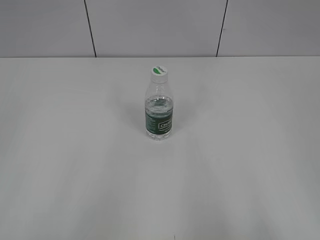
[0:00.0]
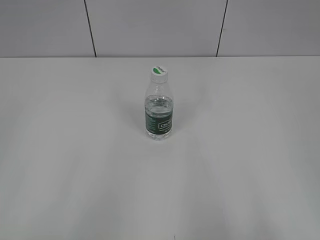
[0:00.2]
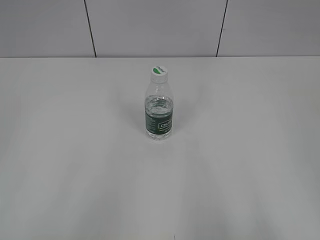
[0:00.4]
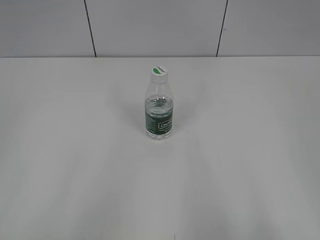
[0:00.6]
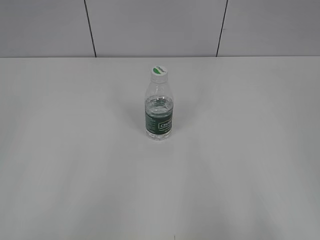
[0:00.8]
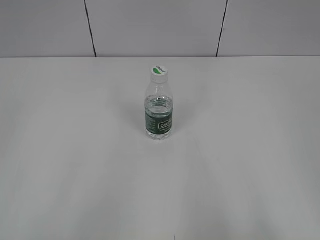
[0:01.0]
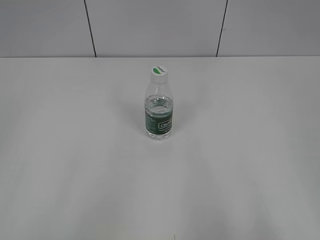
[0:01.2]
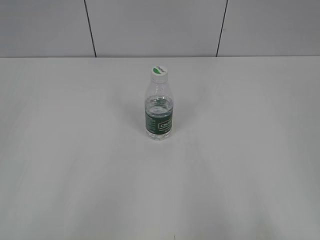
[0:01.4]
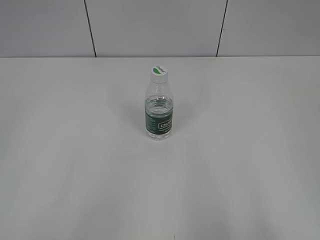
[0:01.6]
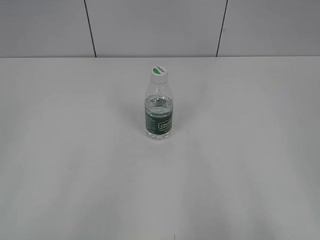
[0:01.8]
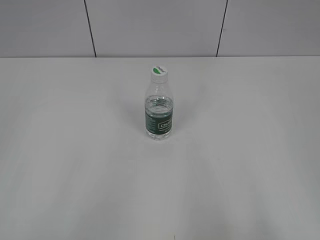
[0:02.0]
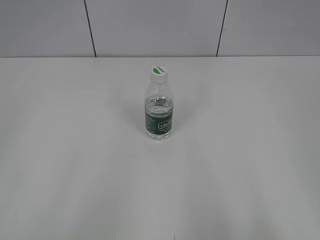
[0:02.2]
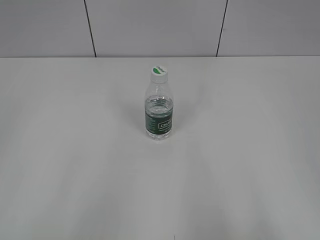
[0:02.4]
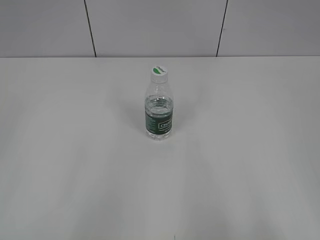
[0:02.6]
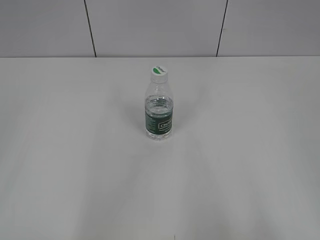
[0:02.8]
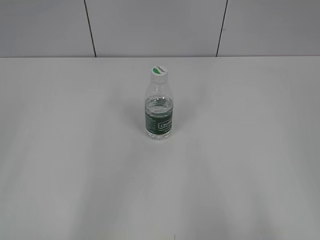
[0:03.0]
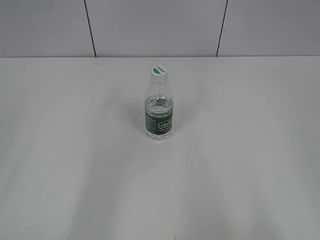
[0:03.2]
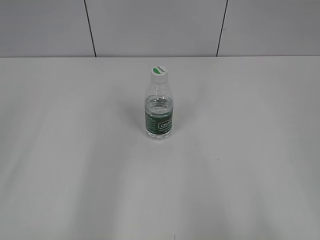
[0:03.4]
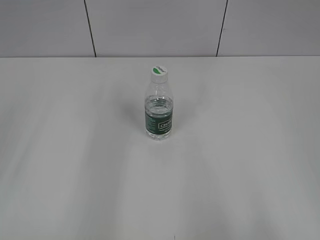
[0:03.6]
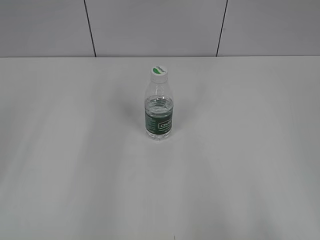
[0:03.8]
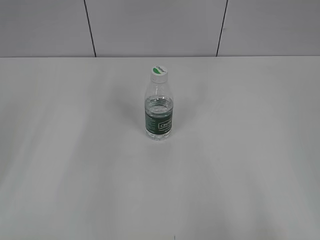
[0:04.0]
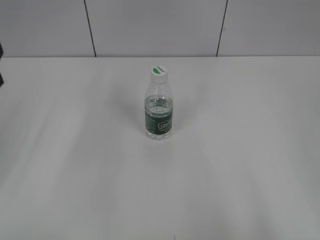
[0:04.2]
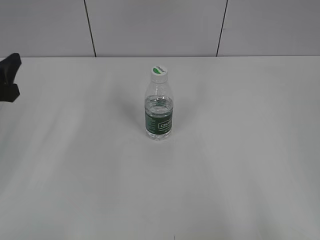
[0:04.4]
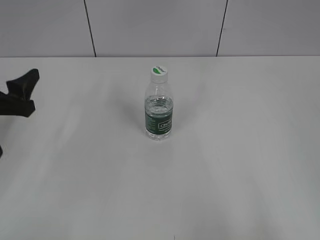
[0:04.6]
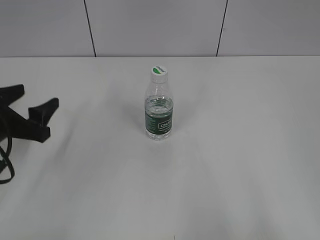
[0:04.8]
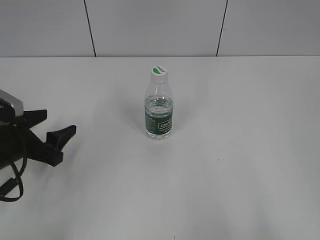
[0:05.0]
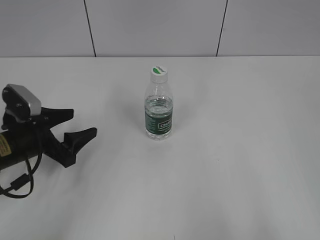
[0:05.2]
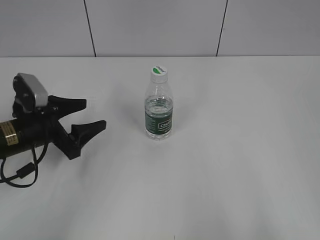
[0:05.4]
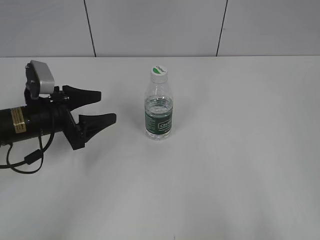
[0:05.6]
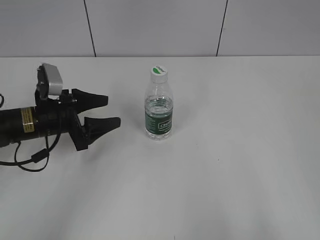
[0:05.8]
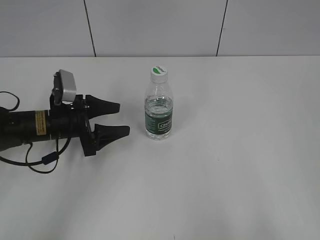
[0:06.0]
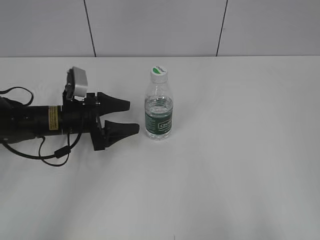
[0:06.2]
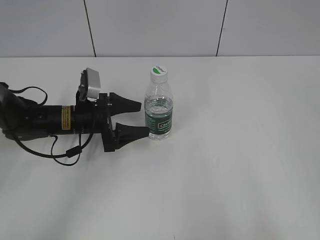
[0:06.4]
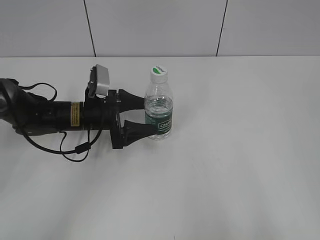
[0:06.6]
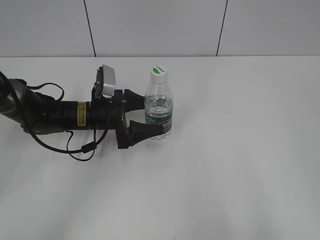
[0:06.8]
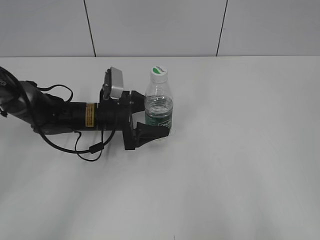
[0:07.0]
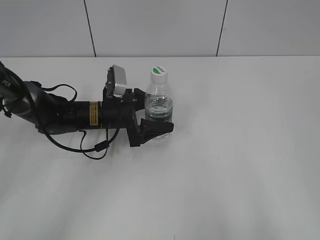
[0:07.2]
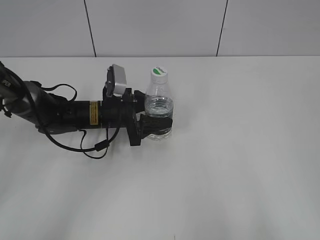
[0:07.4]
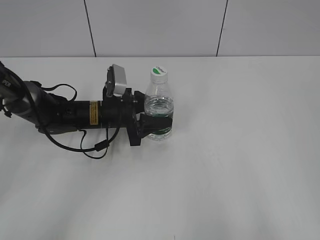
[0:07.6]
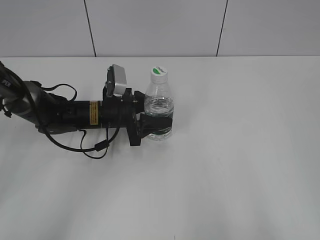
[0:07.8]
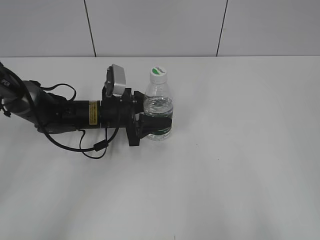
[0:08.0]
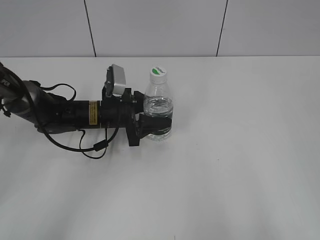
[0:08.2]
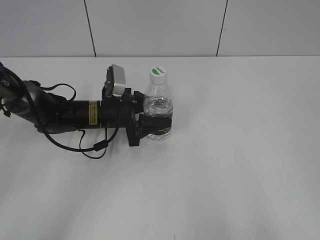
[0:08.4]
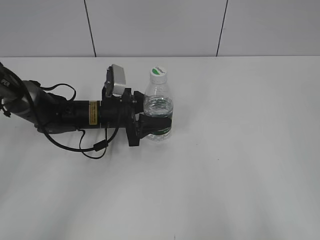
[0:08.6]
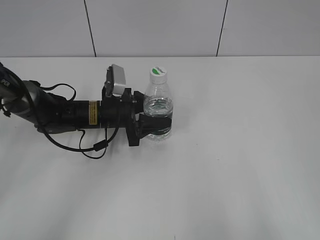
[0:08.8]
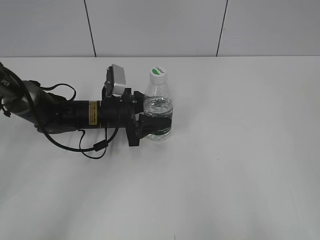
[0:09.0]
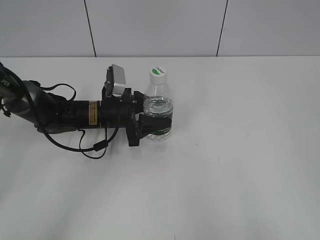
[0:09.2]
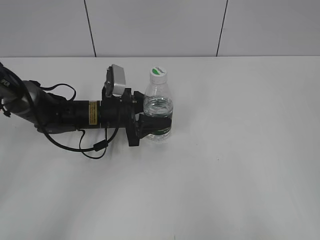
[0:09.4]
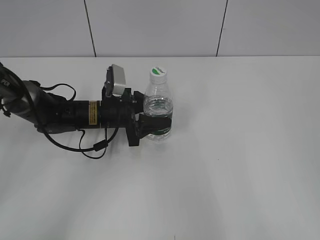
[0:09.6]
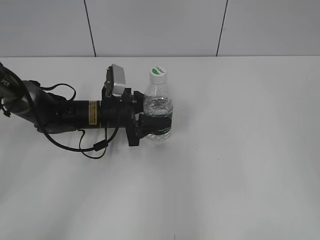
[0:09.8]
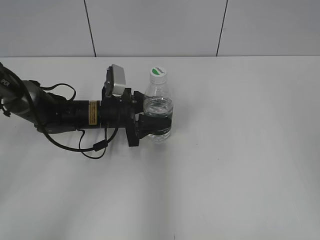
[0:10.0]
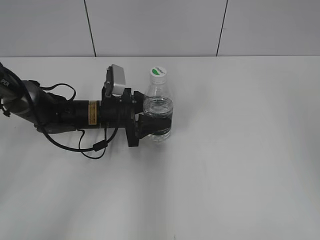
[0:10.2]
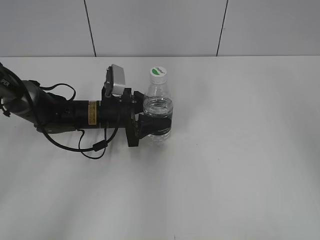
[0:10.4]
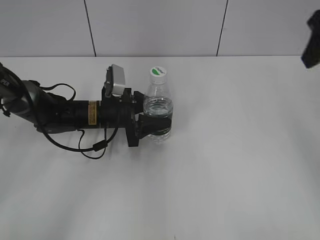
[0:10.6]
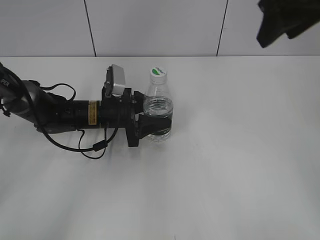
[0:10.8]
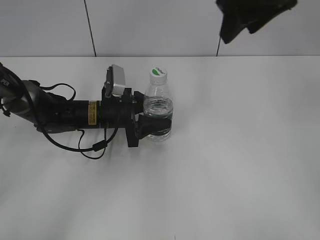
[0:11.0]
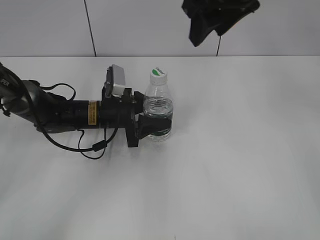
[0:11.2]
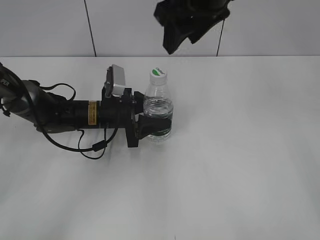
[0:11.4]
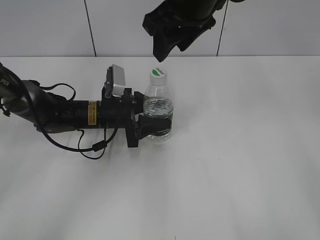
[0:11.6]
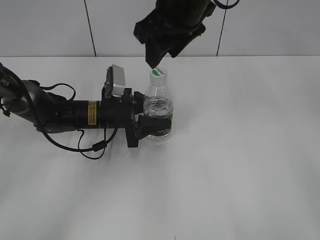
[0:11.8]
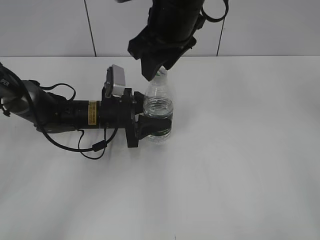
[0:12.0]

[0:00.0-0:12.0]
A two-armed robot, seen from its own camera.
Step, 0:00.0 to 0:08.6: Grasp the bottle and move it to the center of the table with the left gripper.
0:03.0 to 0:04.4: The left gripper heads forward and downward, covering about 25 cm.
0:04.4 to 0:06.0: The left gripper travels downward, forward and to the right by approximately 20 cm.
0:06.0 to 0:07.6: The left gripper travels to the right by some 10 cm, and closes.
0:07.6 to 0:09.0: The two grippers keep their place.
0:09.0 to 0:10.4: The right gripper moves forward, roughly 25 cm, and closes up.
0:10.4 to 0:12.0: The right gripper heads to the left, covering some 25 cm.

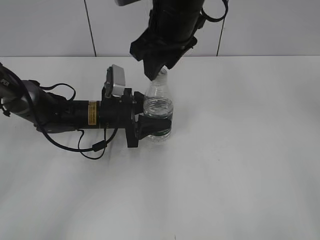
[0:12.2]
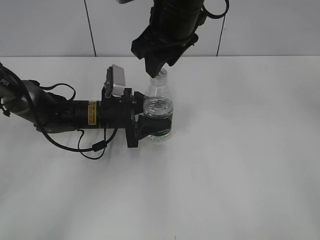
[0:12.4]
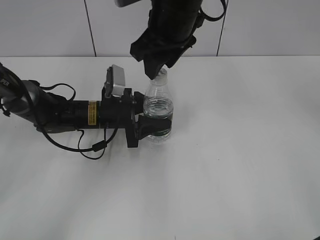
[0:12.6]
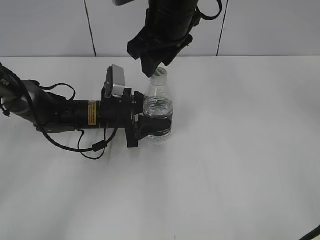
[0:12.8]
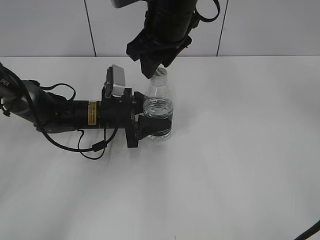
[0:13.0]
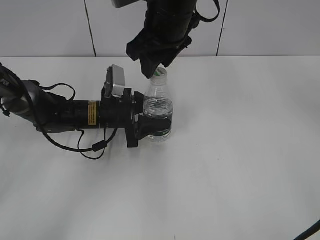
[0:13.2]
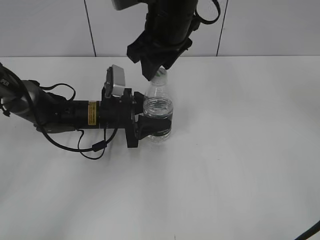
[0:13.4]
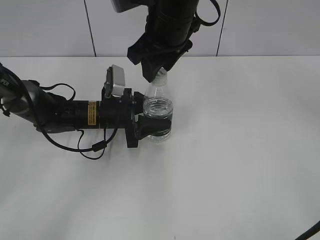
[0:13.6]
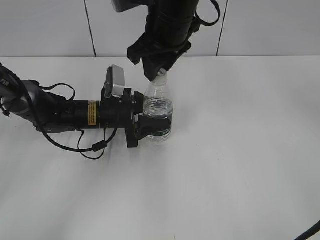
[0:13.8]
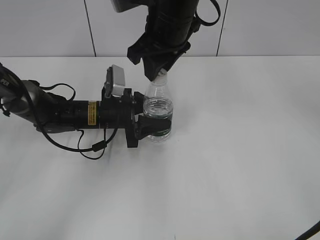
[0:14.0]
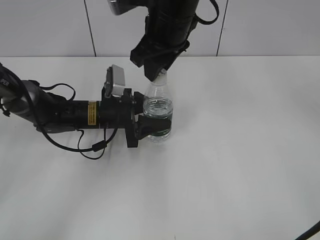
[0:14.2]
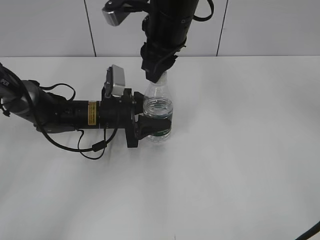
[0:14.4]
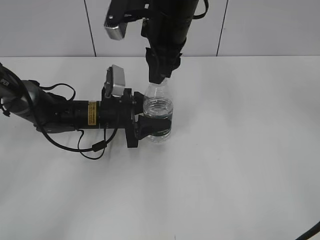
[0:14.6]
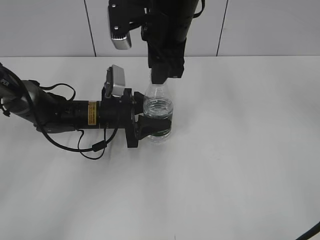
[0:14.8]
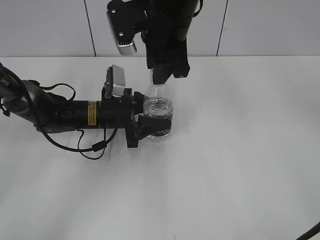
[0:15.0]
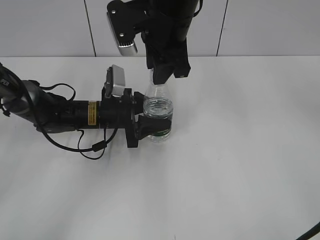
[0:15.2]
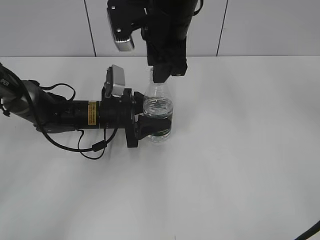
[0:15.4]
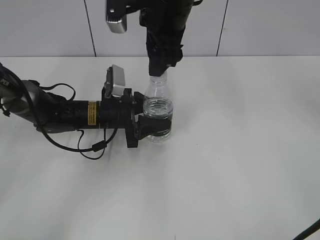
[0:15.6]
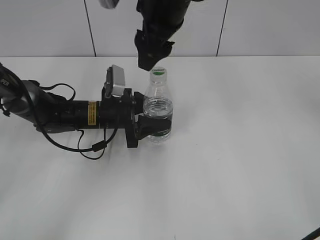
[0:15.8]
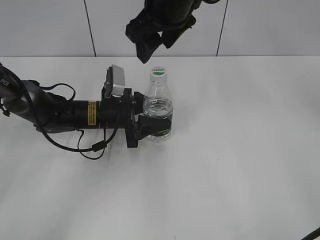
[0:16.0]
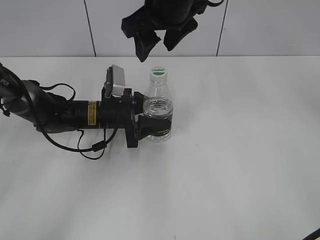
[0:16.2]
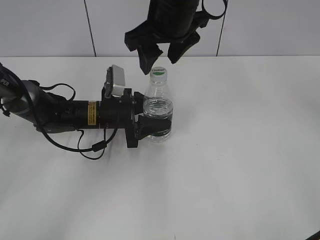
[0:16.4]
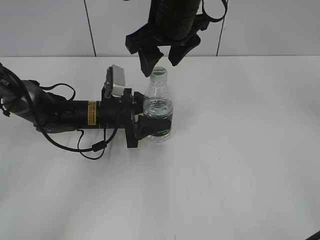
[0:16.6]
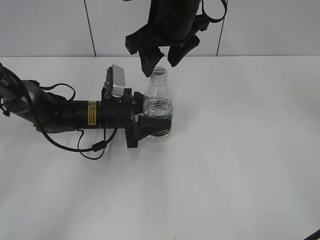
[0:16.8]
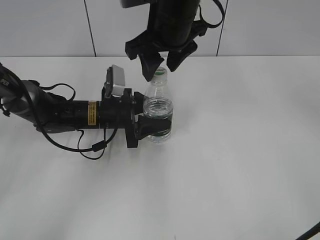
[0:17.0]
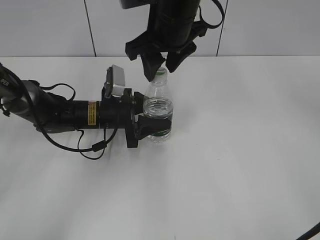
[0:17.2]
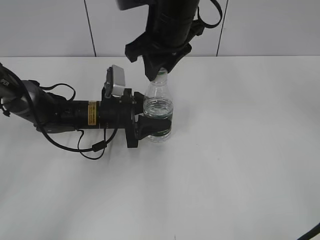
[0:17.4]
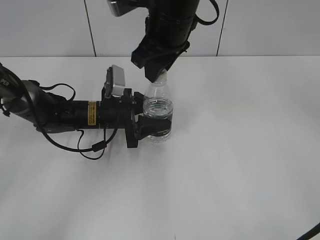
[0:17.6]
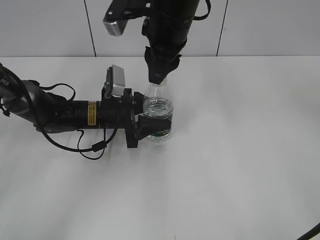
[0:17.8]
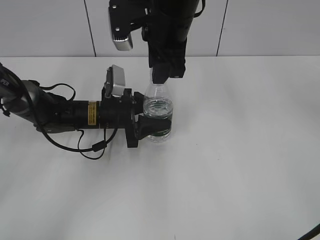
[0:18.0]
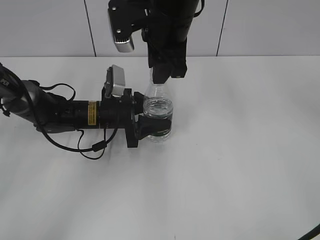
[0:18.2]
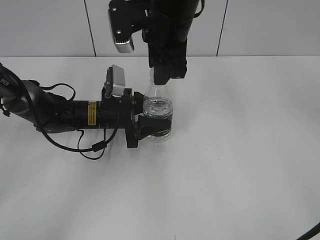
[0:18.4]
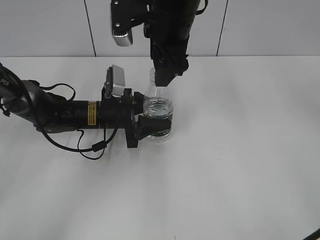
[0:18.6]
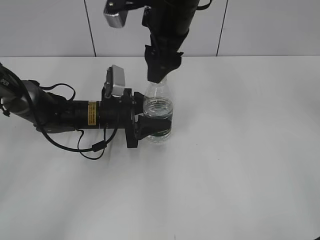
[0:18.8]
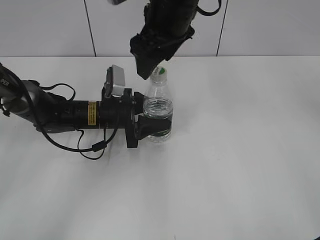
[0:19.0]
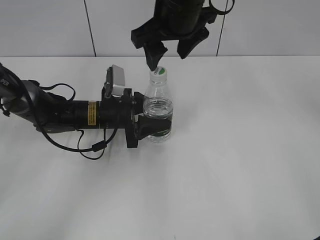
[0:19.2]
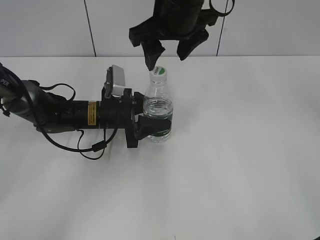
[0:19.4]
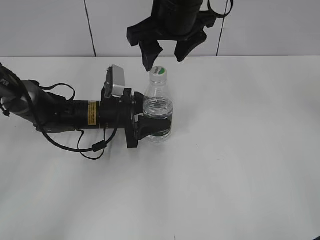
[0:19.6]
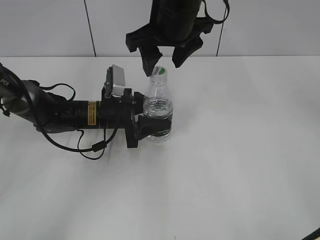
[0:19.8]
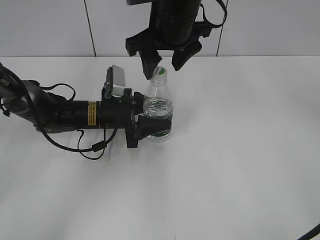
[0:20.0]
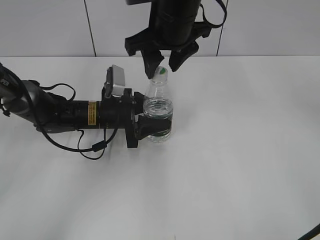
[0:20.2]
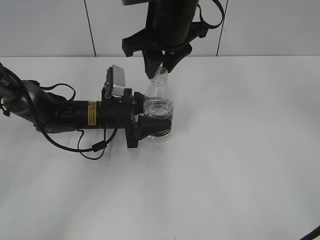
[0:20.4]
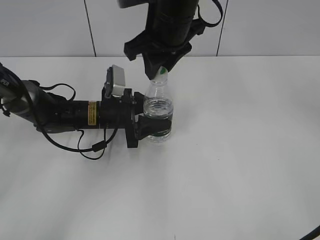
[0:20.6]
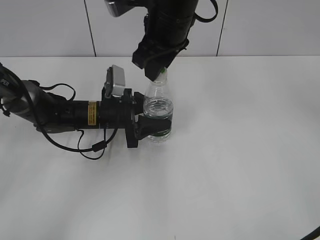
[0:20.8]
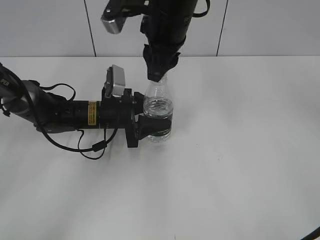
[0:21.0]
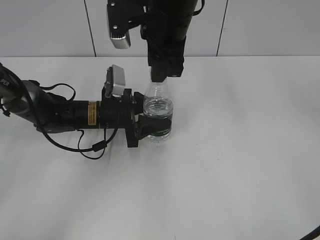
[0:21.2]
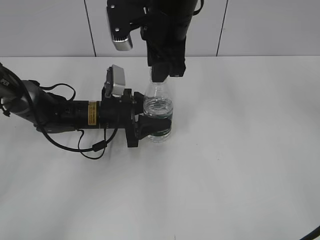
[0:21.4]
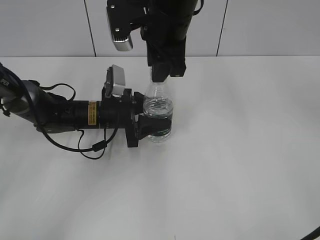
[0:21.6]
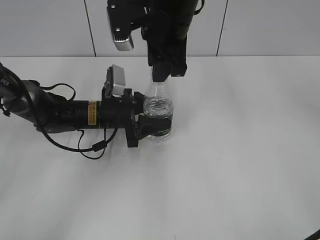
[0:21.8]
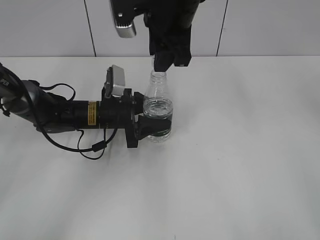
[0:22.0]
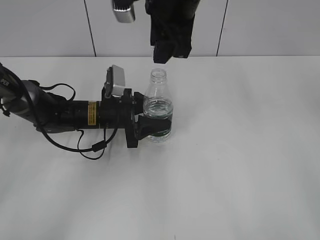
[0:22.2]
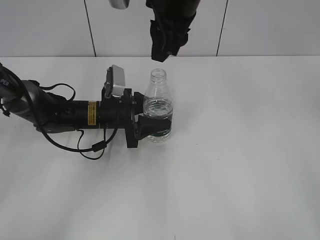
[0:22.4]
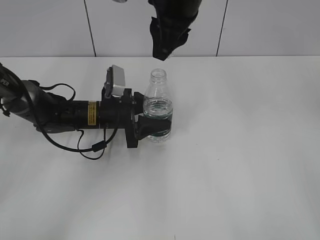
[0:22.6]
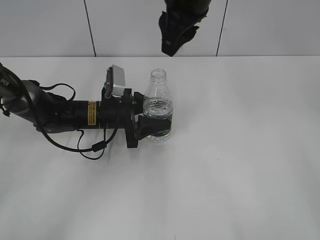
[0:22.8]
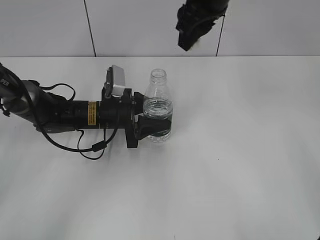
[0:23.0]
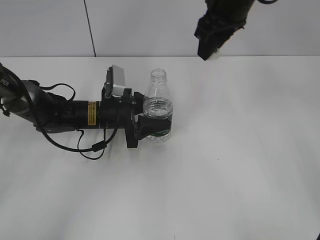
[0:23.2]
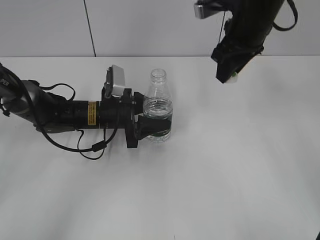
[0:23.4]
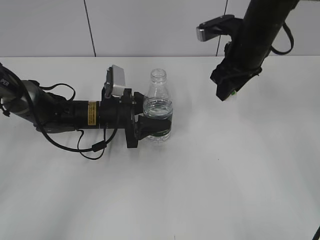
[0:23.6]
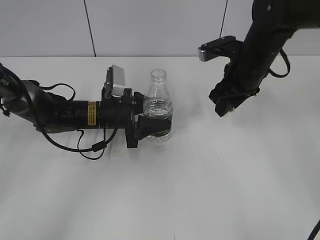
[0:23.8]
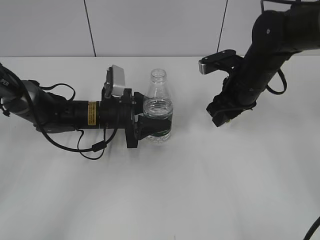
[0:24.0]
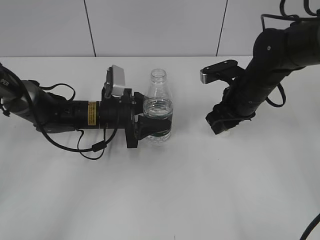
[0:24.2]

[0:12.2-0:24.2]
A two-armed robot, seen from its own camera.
Step, 0:12.2 to 0:22.2: Unscrew the bottle cap with the right gripper while holding the bottle with the left gripper.
0:12.2 to 0:13.8: The grippers make only small movements.
0:15.2 to 0:16.6: The right gripper opens up.
0:16.6 to 0:18.2: The right gripper closes its fingers.
0:18.2 to 0:19.8: The right gripper opens.
0:19.8 to 0:21.2: The right gripper closes its fingers.
0:22.6 to 0:24.2: The right gripper travels downward and to the right by roughly 25 cm.
